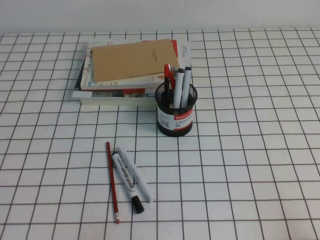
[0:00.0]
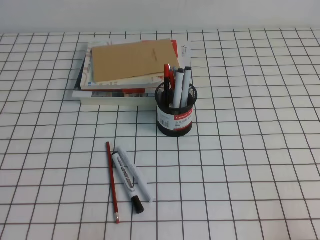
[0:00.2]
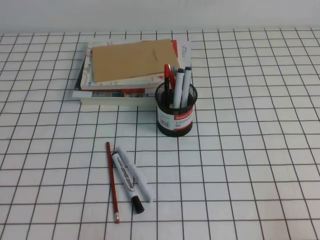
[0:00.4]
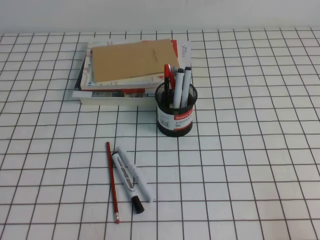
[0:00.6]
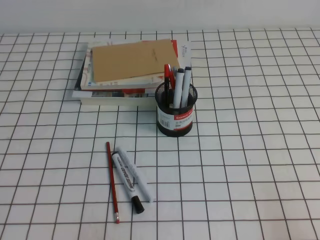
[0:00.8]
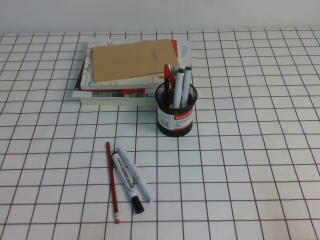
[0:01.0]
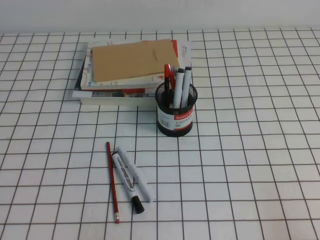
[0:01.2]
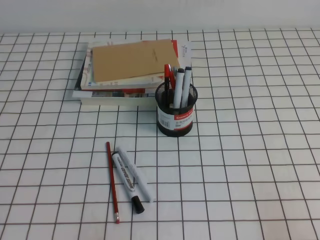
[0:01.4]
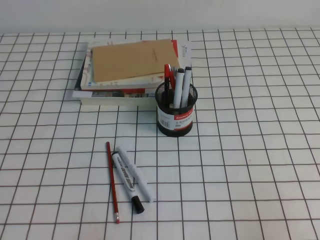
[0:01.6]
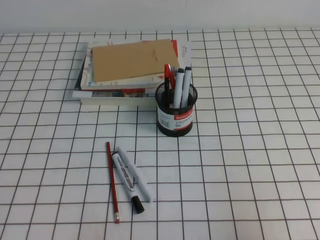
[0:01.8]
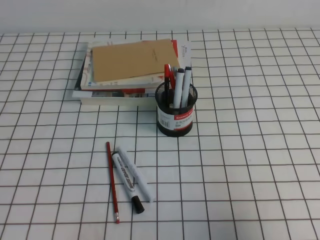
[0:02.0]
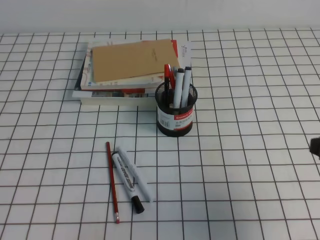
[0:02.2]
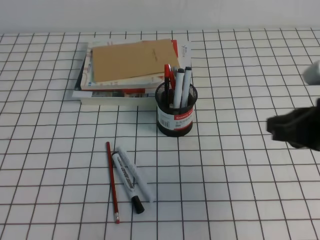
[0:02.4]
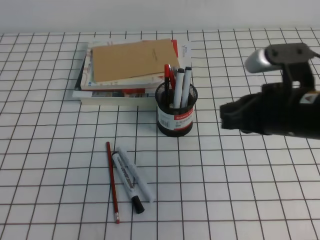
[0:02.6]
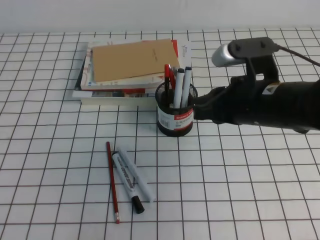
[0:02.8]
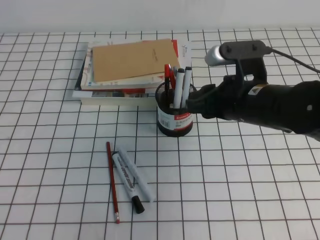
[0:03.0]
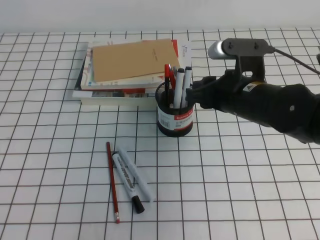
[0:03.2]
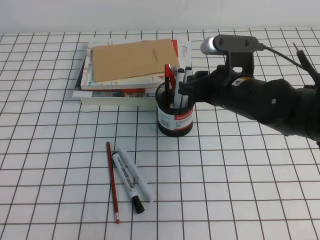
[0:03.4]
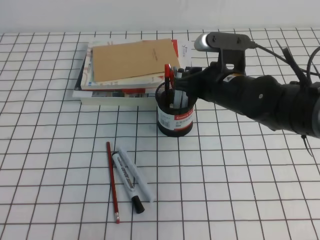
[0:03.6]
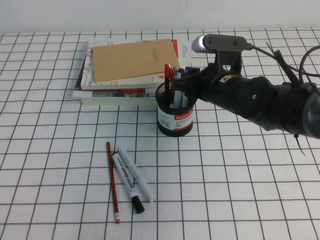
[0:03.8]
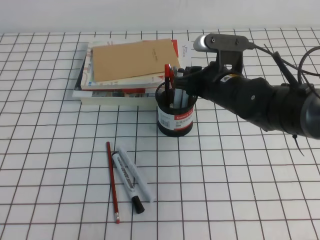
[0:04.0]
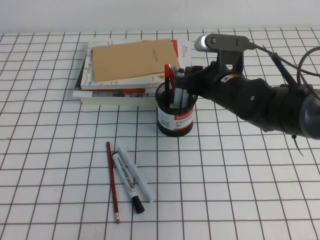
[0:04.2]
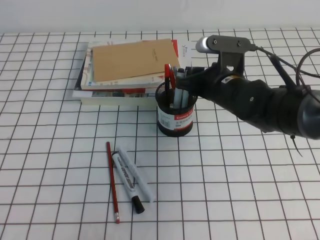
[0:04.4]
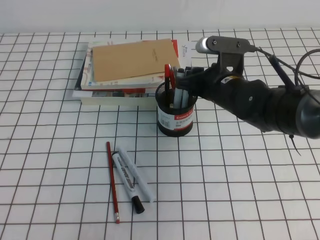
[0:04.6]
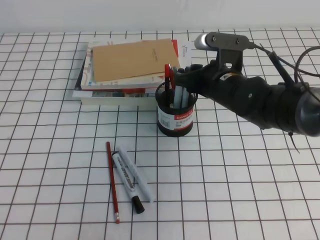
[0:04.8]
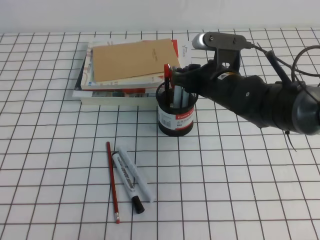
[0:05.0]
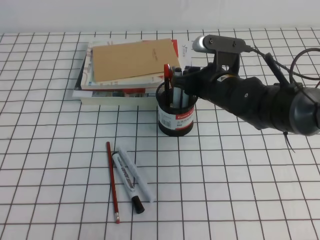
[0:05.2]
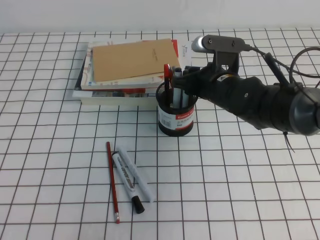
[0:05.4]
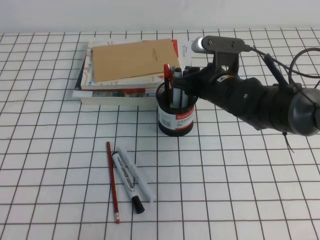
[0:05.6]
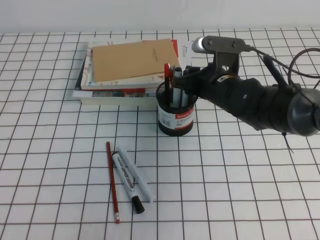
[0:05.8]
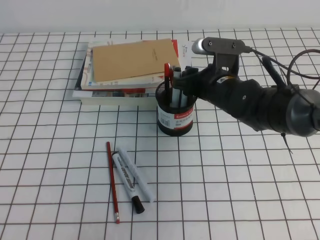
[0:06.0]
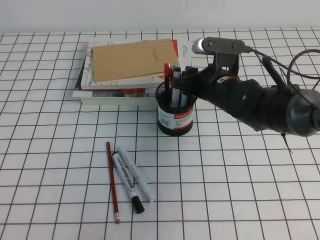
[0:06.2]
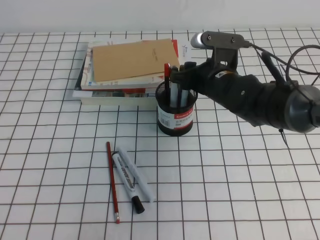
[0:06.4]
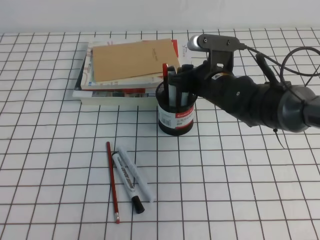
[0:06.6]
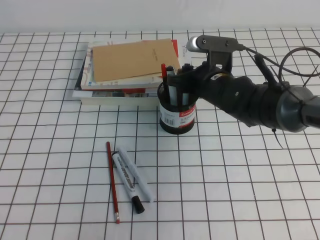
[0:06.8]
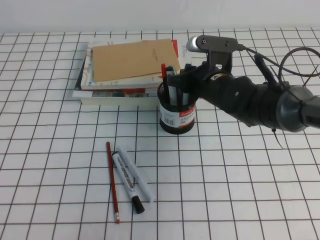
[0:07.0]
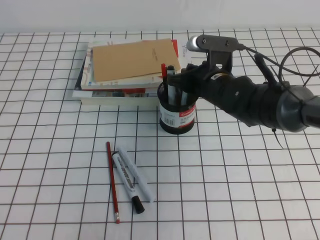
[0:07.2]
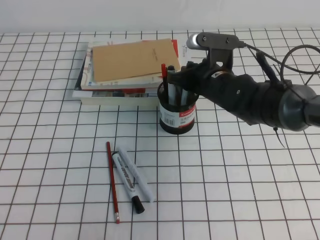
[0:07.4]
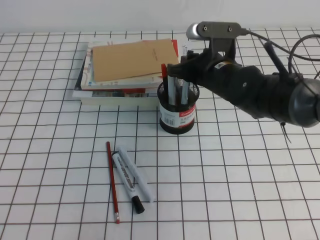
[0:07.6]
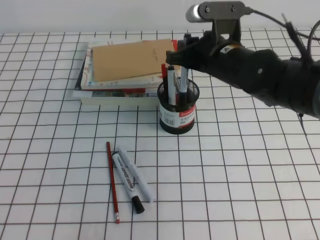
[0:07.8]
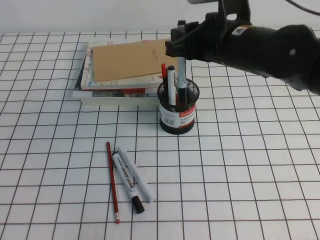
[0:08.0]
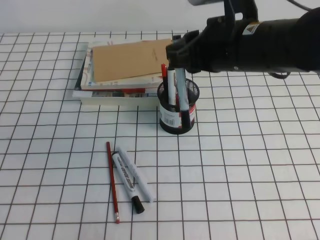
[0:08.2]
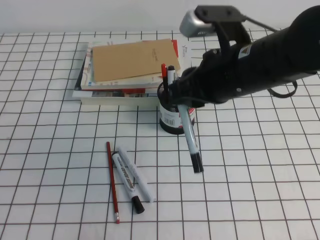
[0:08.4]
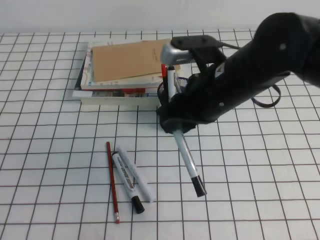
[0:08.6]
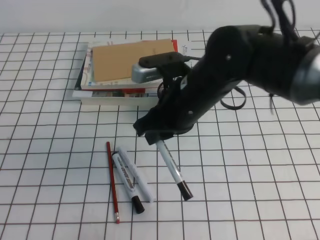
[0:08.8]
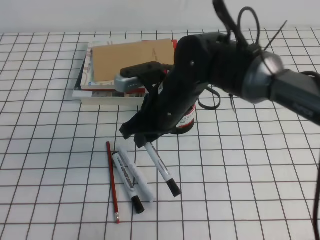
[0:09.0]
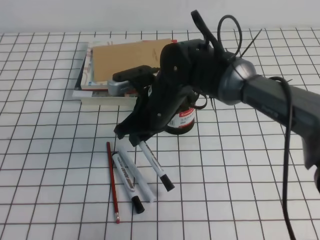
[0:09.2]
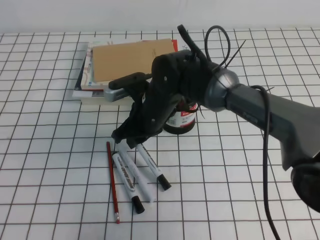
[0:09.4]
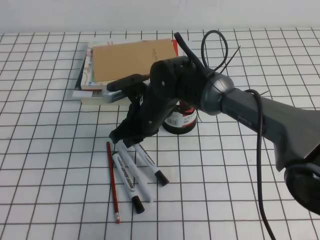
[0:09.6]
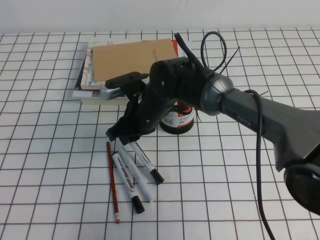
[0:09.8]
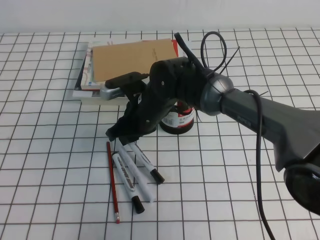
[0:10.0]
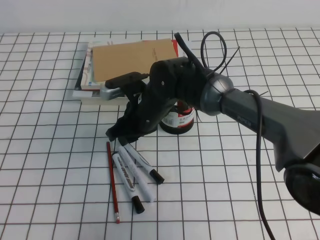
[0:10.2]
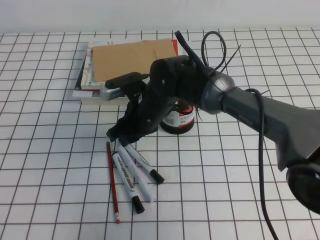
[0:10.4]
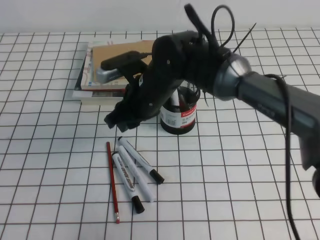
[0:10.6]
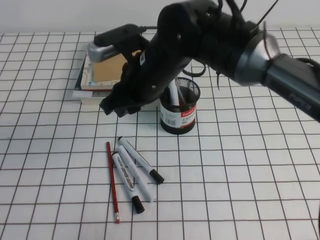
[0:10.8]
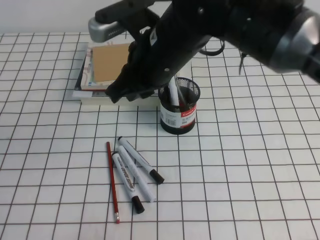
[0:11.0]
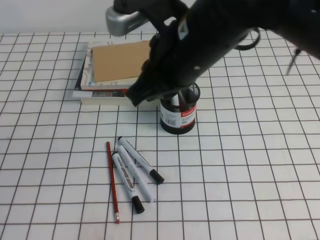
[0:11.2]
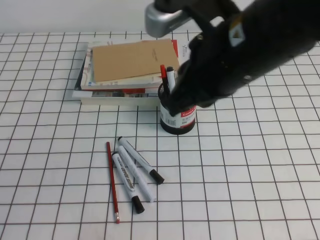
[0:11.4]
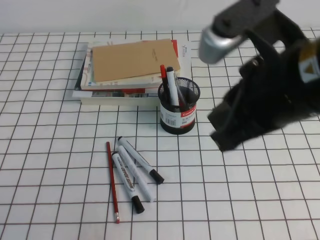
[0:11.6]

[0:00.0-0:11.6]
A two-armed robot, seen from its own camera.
0:01.4 to 0:02.8: The right gripper is displaced forward, to the left and upward by about 30 cm.
0:02.8 to 0:04.4: The right gripper goes about 10 cm forward and downward, and opens.
0:04.4 to 0:05.8: Both grippers stay about where they are.
0:05.8 to 0:07.2: The right gripper closes its fingers.
0:07.2 to 0:08.8: The right gripper is displaced backward and upward by approximately 10 cm.
0:08.8 to 0:10.2: The right gripper heads downward, to the left and forward, covering approximately 15 cm.
0:10.2 to 0:11.6: The right gripper shifts roughly 30 cm upward, backward and to the right, and closes its fingers.

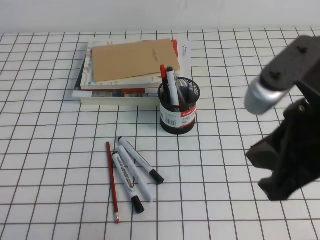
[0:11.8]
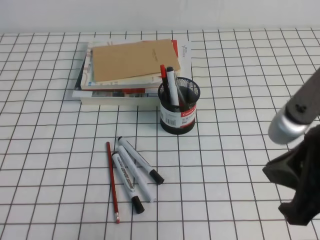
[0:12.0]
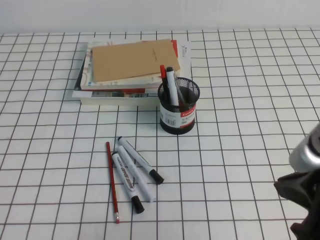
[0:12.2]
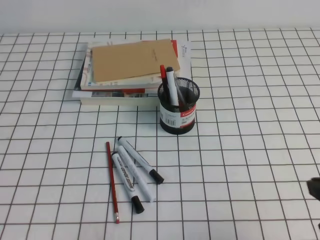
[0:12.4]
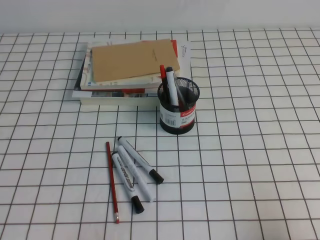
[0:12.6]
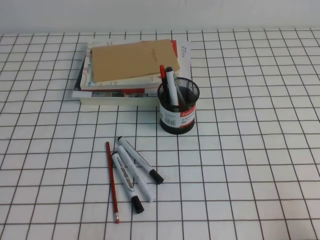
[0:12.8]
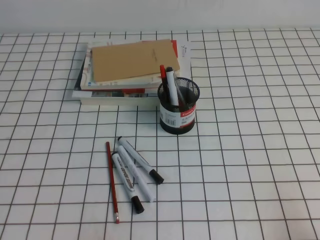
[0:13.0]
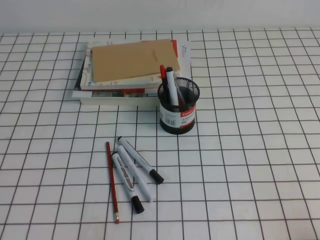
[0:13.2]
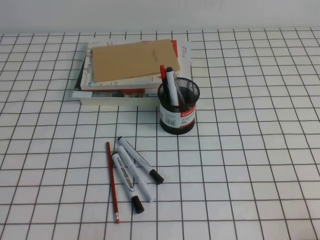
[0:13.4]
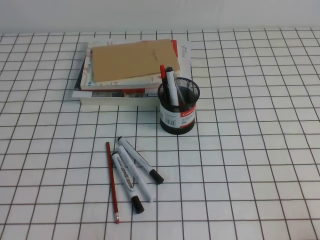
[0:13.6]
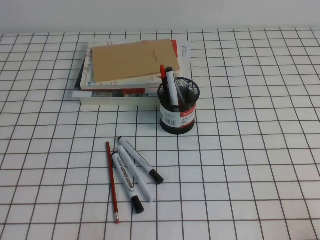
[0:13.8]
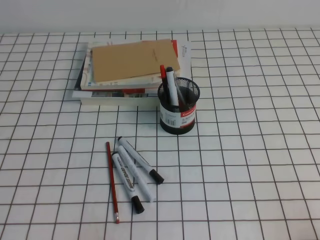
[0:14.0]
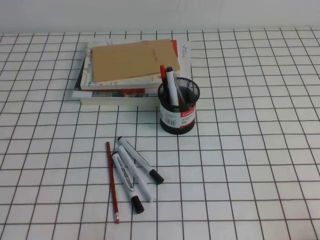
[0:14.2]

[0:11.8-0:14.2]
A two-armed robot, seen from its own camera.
Step, 0:11.8 to 0:14.2: Pick up the pen from the pen holder.
0:11.8 to 0:13.0: The right gripper heads downward, to the right and backward, covering roughly 25 cm.
